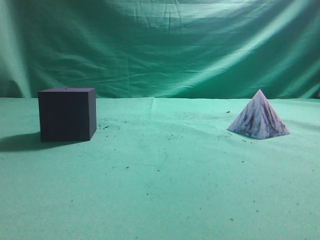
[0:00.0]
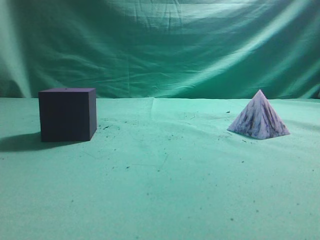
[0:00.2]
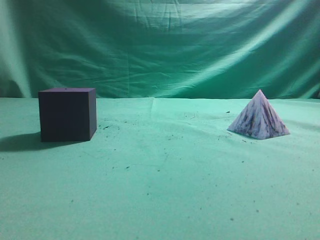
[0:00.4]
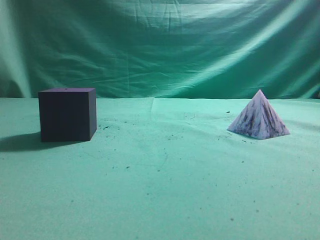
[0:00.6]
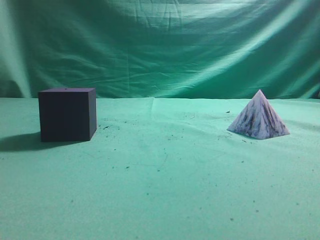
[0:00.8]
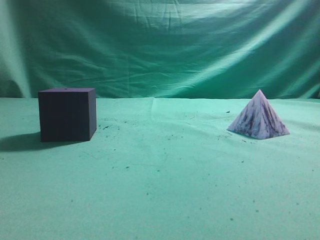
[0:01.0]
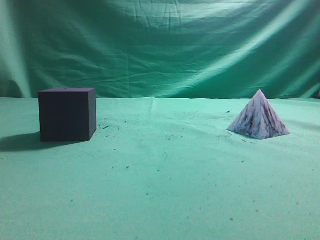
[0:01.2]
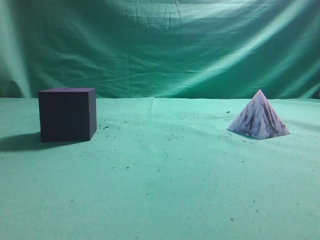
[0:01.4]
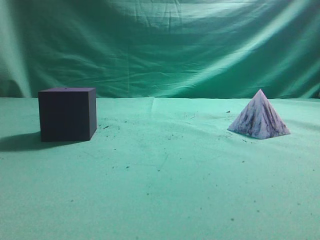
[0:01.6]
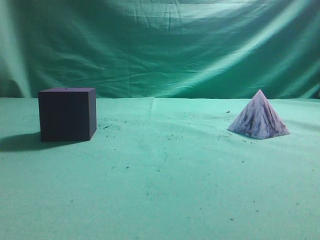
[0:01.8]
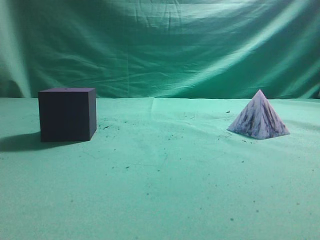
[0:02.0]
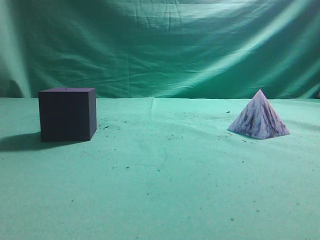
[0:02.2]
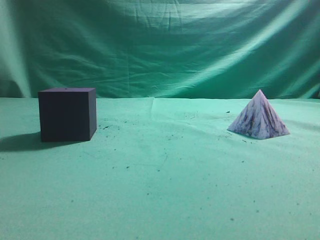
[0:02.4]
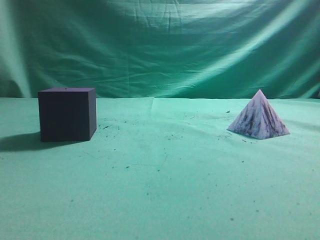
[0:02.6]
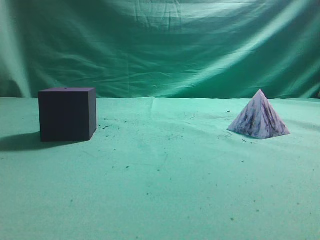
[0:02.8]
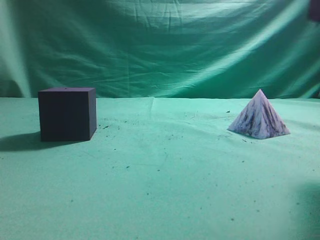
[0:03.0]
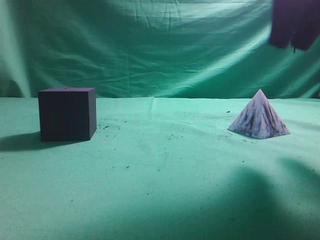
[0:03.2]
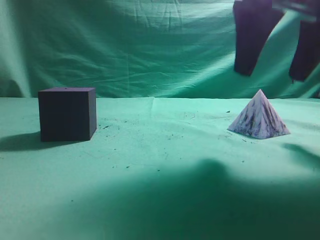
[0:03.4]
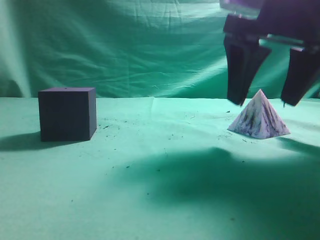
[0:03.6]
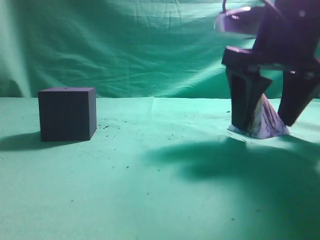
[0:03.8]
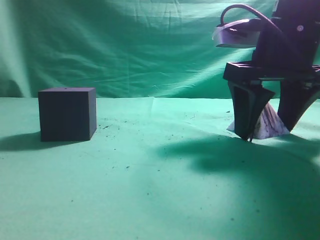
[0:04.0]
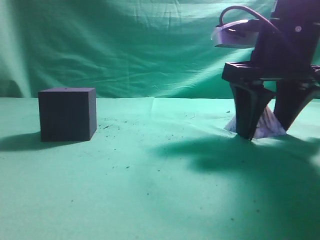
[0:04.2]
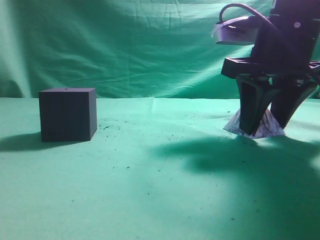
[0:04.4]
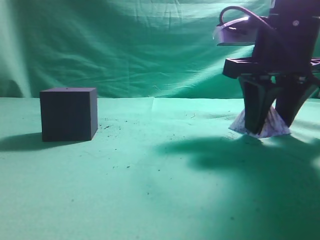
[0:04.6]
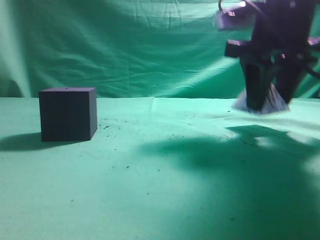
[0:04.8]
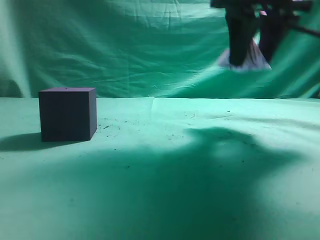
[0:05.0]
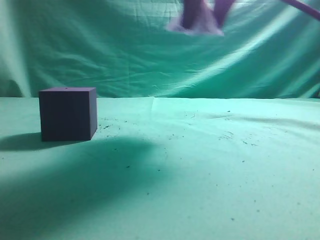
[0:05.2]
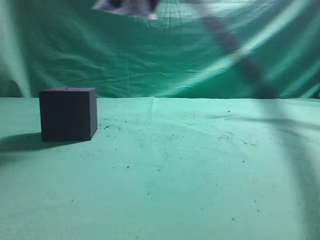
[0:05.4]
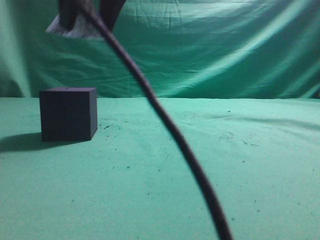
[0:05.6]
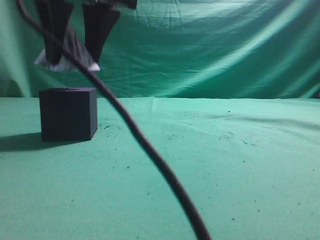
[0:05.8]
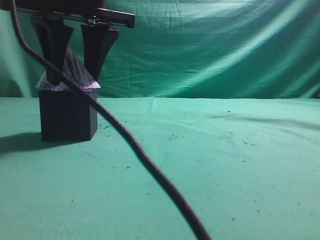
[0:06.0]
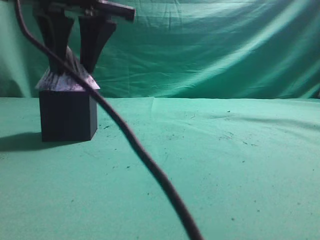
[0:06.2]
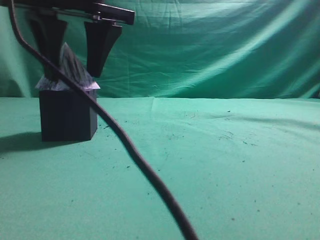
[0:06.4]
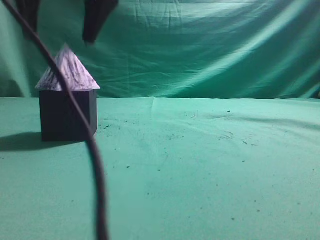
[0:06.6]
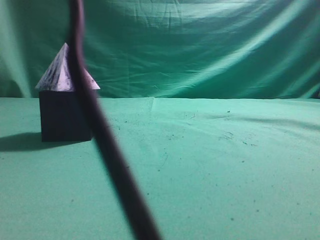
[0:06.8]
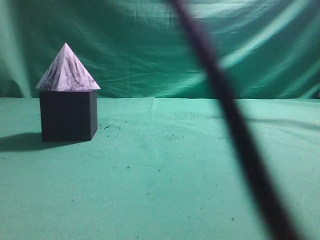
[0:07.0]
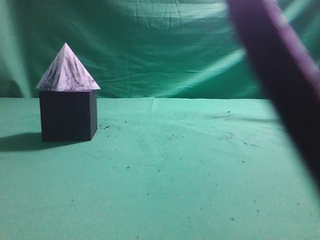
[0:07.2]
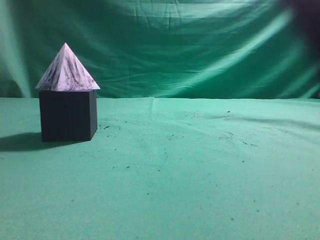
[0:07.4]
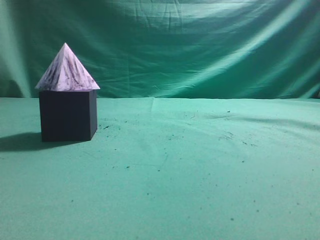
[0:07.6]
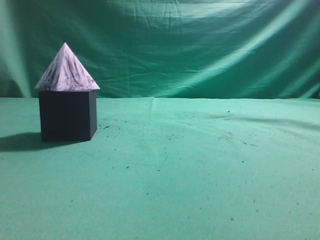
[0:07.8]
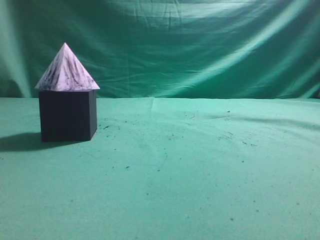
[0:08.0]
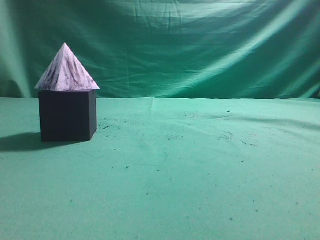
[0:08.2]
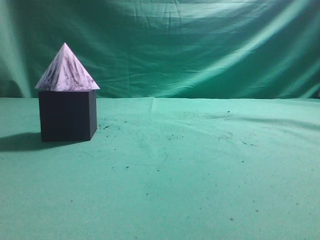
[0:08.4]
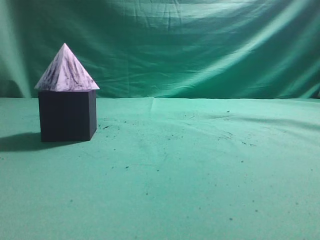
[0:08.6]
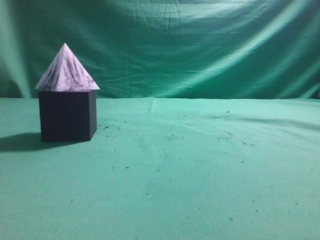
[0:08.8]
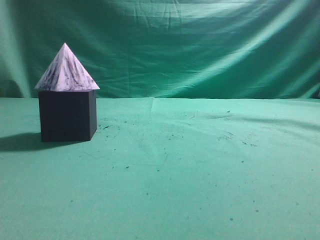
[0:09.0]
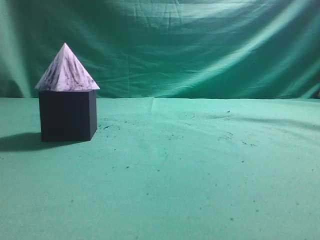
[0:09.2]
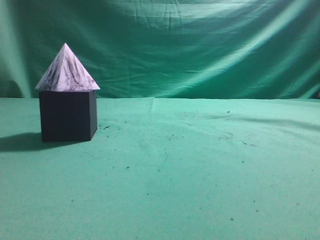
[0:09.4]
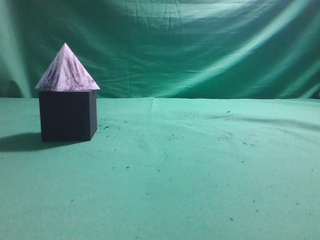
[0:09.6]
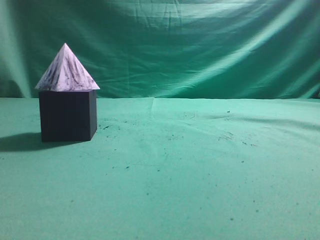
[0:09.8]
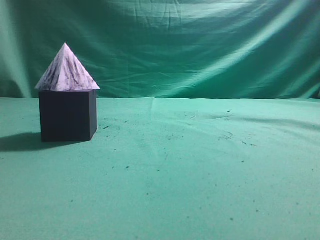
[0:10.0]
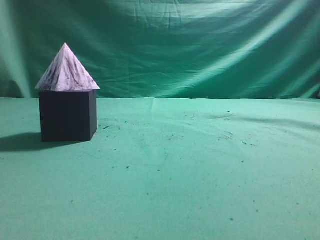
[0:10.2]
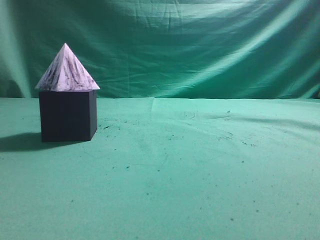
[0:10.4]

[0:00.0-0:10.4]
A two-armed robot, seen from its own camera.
Task of the whole recording: pick up the square pyramid from the table and place it on the cube block.
Step, 0:00.0 to 0:04.8: Grasp the triangular block.
Step, 0:05.0 to 0:06.4: Place the block onto the cube-shaped block.
0:01.4 to 0:03.0: The right gripper travels forward, upward and to the left by approximately 20 cm.
0:03.0 to 0:04.4: The right gripper travels downward and forward by approximately 15 cm, and opens up.
0:04.4 to 0:06.0: The right gripper moves to the left, some 25 cm.
0:06.0 to 0:07.4: The right gripper moves upward and to the right, roughly 30 cm, and closes up.
0:07.4 to 0:09.0: The right gripper moves to the right, downward and backward, approximately 35 cm.
